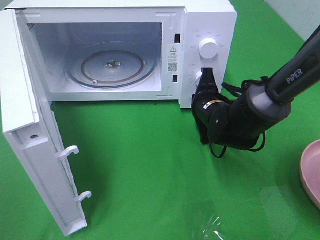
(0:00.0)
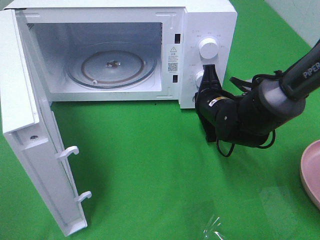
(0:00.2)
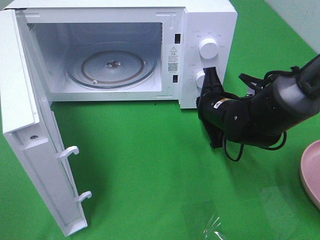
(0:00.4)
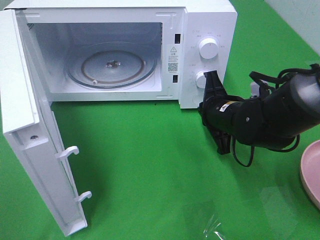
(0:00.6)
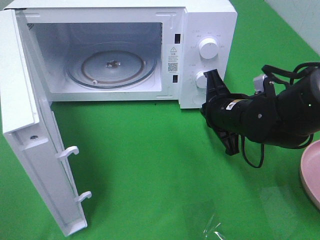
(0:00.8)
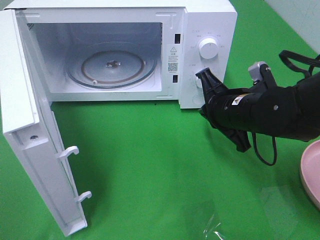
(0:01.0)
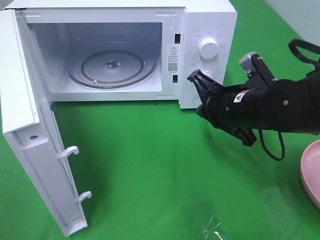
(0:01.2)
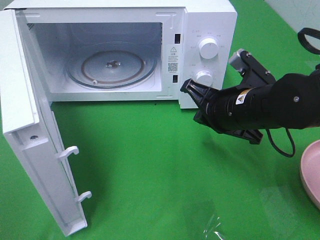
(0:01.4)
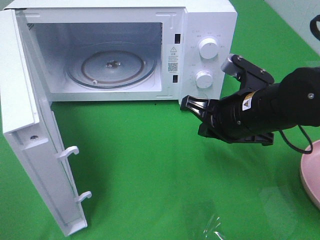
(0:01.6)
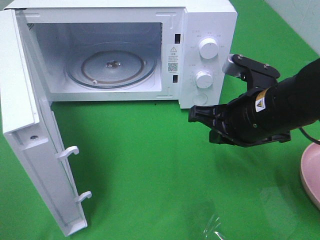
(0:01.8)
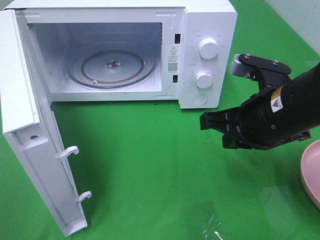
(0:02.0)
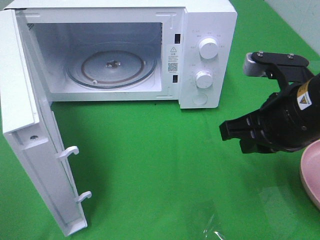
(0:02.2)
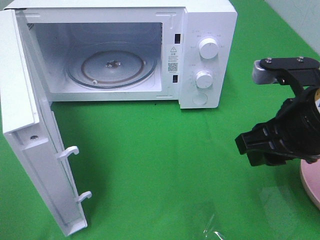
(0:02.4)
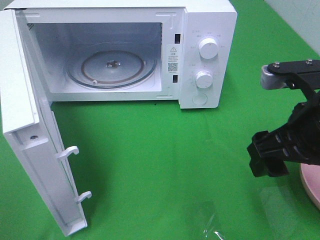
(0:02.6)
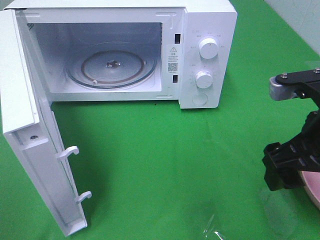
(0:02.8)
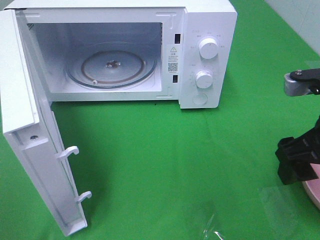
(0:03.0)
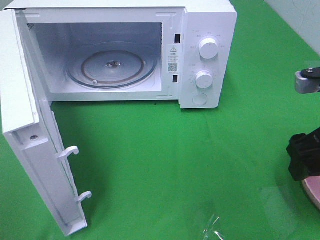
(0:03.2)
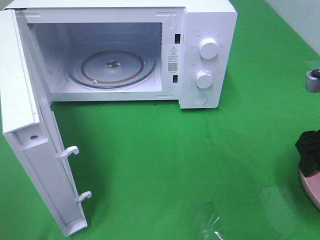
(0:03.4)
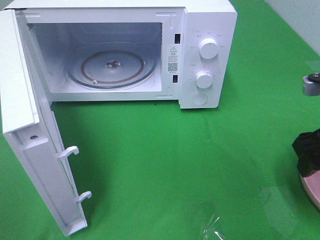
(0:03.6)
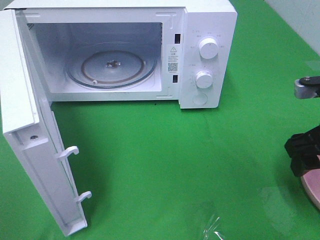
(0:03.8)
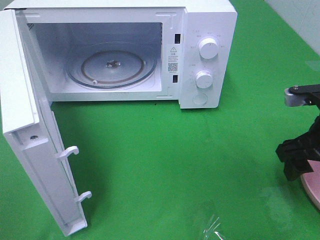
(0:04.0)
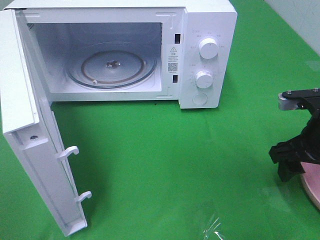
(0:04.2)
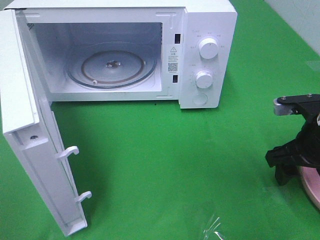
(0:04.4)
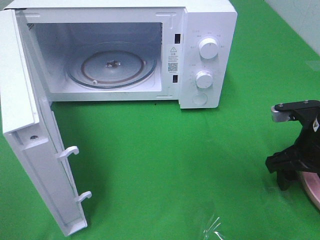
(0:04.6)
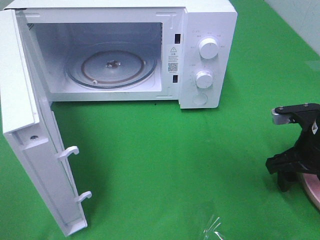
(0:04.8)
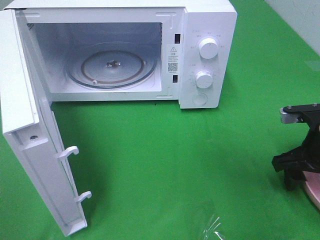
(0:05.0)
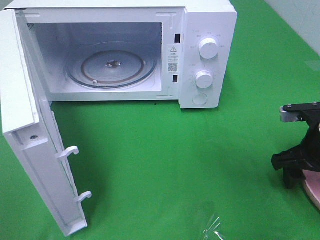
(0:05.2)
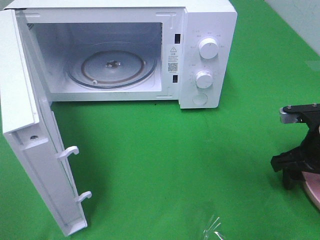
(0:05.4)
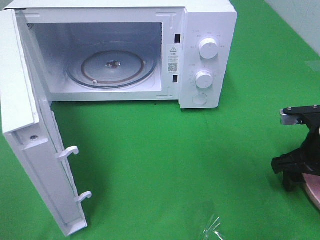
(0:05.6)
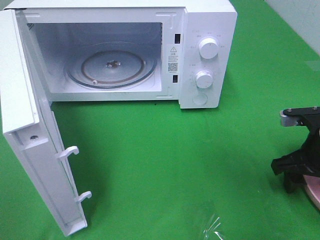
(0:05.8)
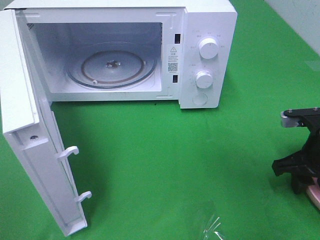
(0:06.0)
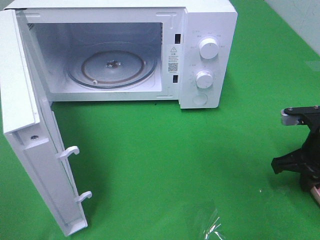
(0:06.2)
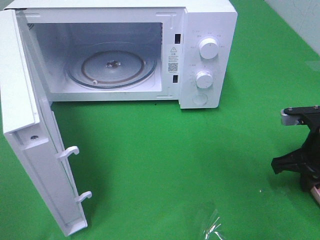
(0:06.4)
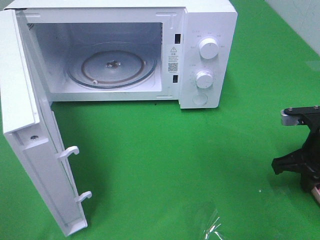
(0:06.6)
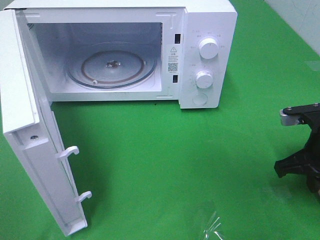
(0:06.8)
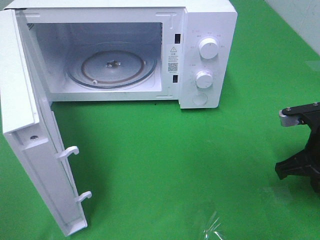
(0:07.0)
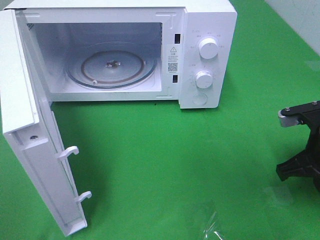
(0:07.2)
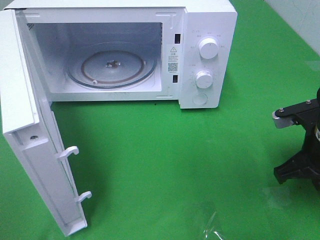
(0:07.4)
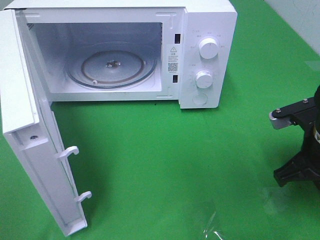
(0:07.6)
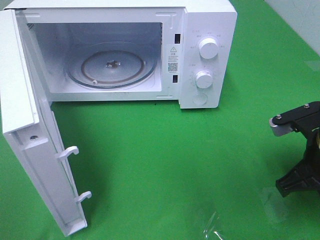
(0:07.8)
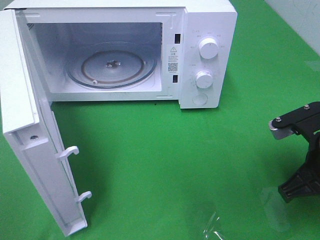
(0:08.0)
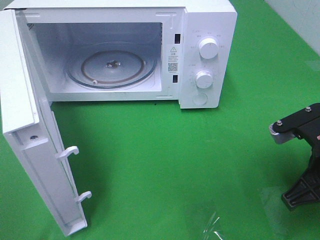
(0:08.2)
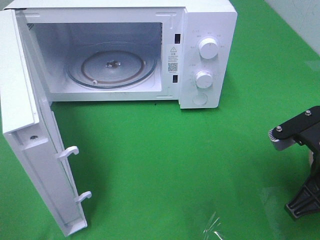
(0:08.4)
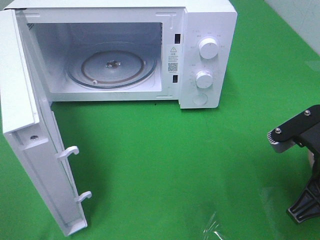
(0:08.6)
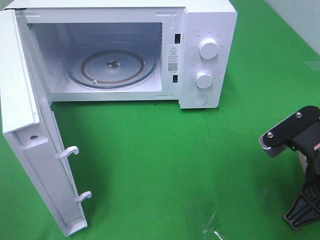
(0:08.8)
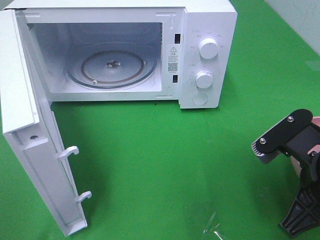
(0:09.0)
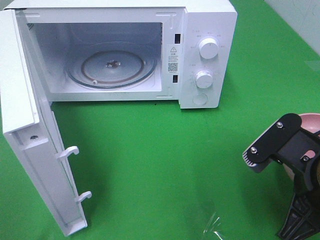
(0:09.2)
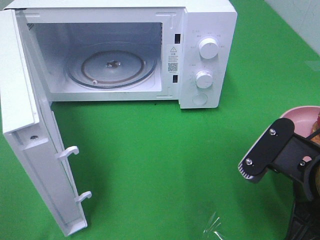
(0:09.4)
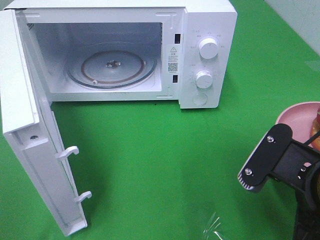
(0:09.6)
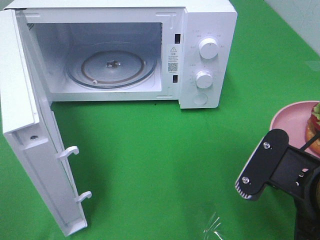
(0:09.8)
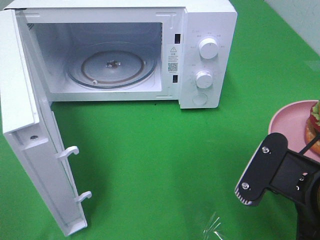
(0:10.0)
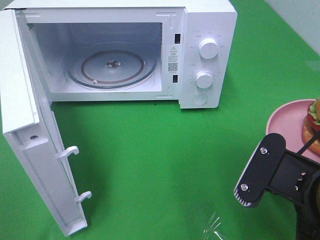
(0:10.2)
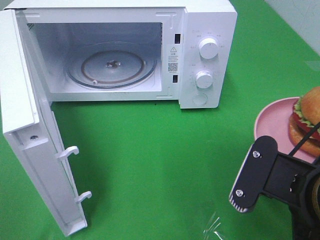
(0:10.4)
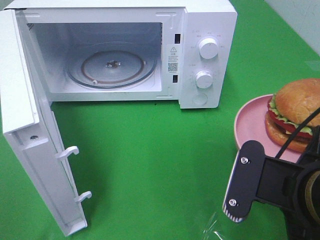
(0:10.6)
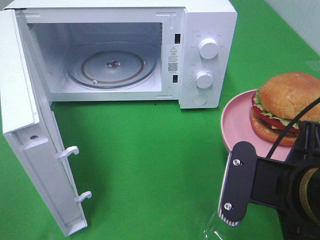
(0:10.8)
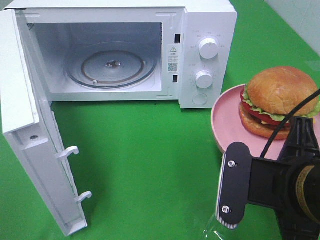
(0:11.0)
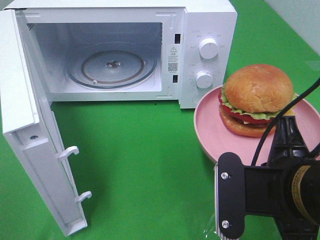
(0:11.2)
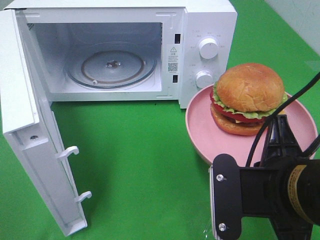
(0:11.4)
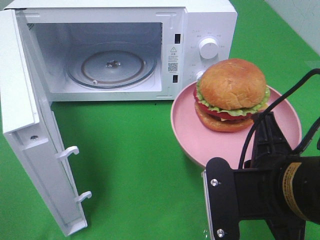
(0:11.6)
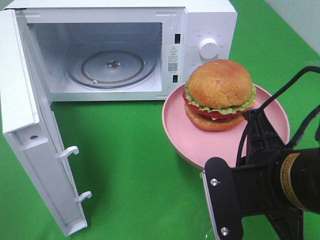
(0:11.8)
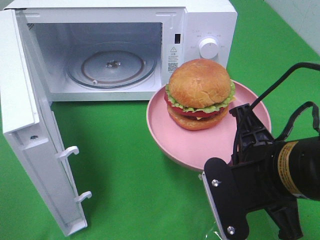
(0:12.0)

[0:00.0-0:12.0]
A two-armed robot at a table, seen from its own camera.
Task of the whole recording: Heat the burger.
Step, 0:00.6 to 0:07.2: Right hand: grab the plate with the hamburger.
0:00.0 to 0:01.6: The right gripper goes about 15 cm backward and upward.
0:01.6 to 0:03.0: The right gripper is displaced to the right, backward and upward by some 10 cm, and opens up.
0:03.0 to 0:04.4: The right gripper goes approximately 10 cm downward and forward.
0:04.4 to 0:06.0: The right gripper closes.
0:06.0 to 0:07.6: The right gripper changes place by some 5 cm, and closes.
0:07.6 to 0:09.0: The right gripper travels backward by some 10 cm.

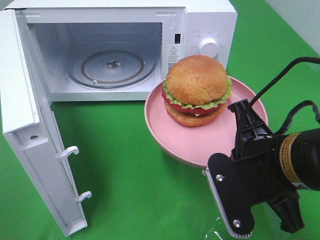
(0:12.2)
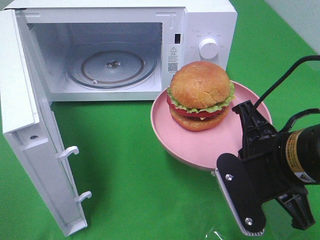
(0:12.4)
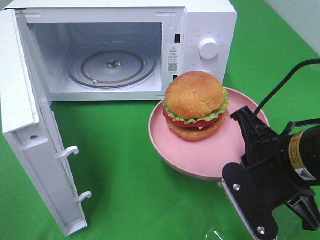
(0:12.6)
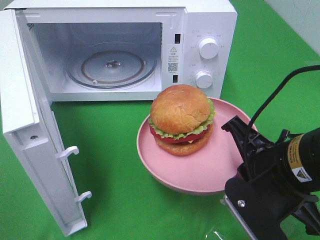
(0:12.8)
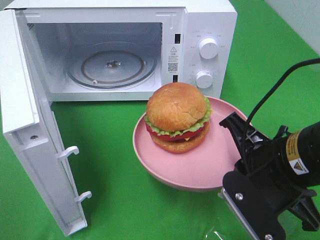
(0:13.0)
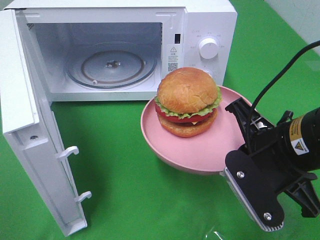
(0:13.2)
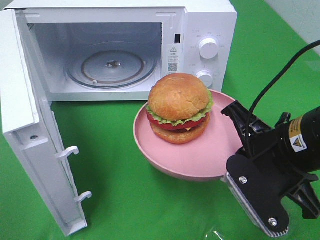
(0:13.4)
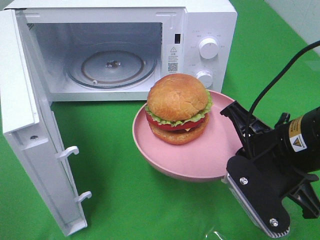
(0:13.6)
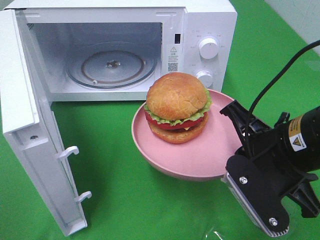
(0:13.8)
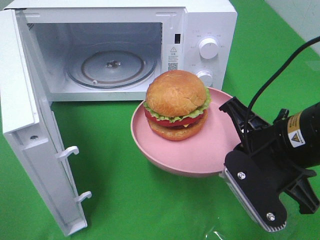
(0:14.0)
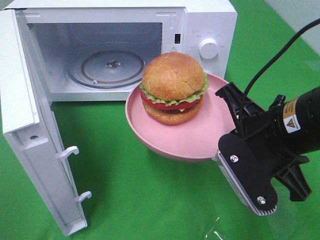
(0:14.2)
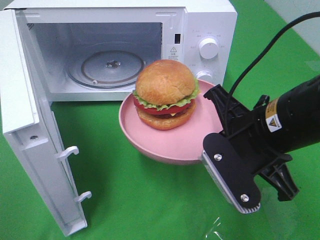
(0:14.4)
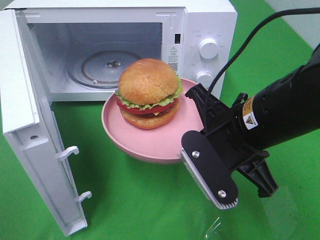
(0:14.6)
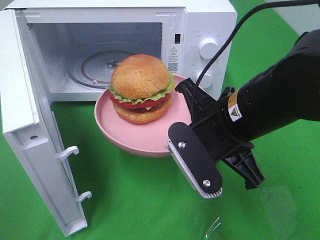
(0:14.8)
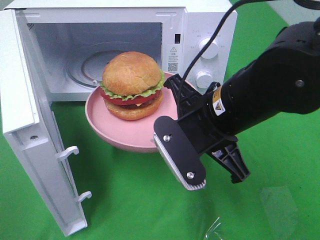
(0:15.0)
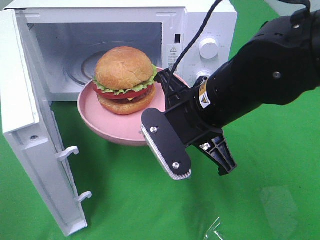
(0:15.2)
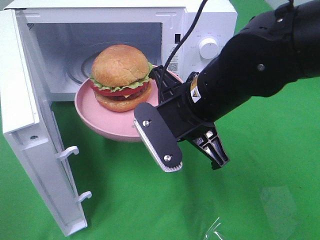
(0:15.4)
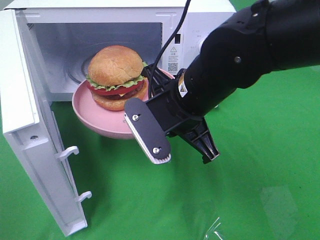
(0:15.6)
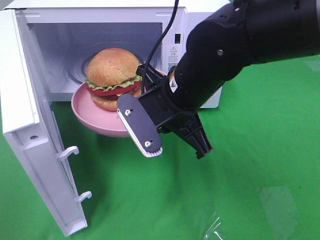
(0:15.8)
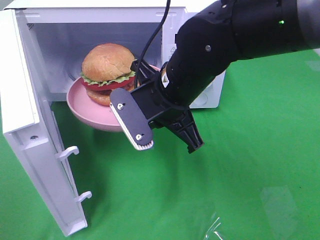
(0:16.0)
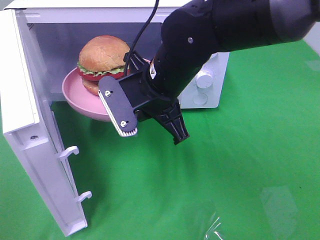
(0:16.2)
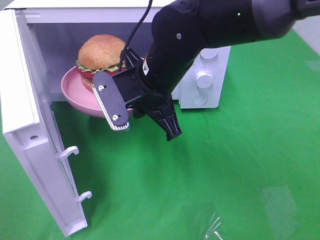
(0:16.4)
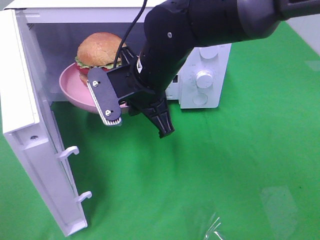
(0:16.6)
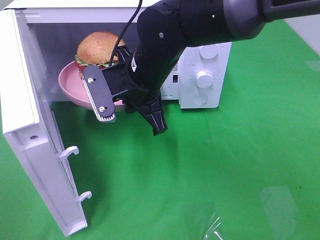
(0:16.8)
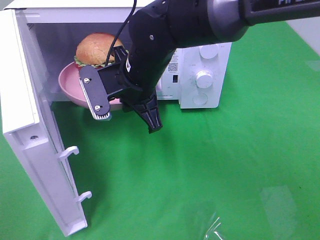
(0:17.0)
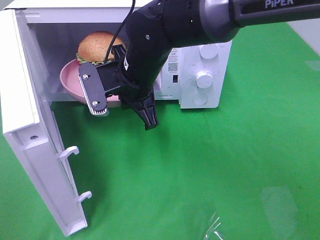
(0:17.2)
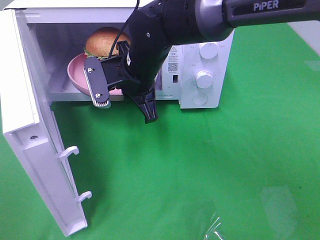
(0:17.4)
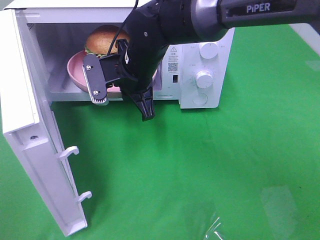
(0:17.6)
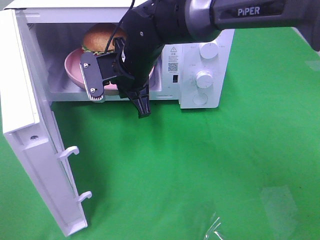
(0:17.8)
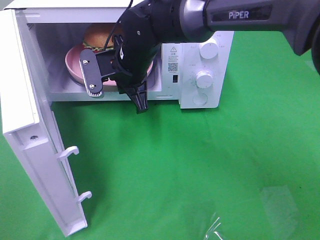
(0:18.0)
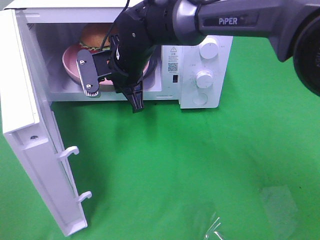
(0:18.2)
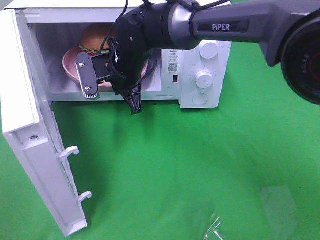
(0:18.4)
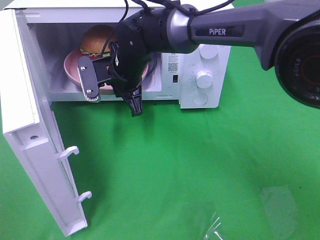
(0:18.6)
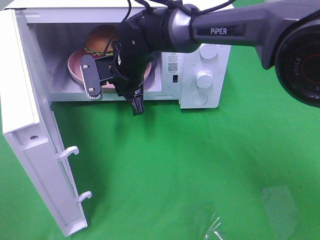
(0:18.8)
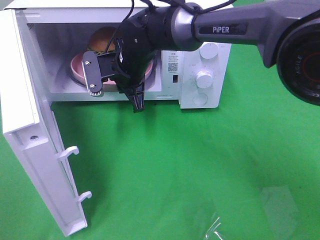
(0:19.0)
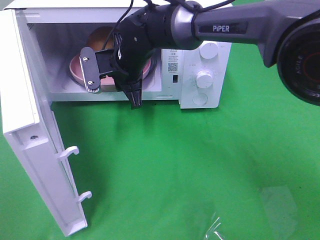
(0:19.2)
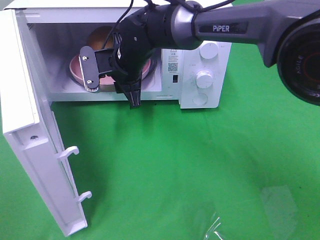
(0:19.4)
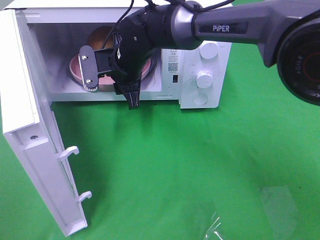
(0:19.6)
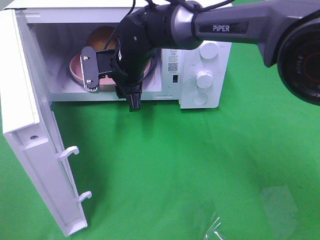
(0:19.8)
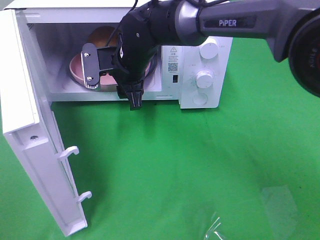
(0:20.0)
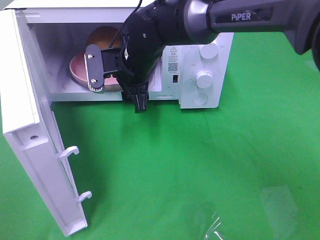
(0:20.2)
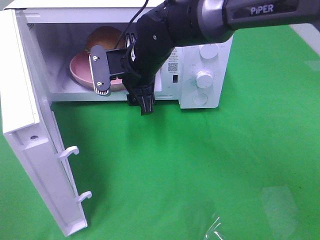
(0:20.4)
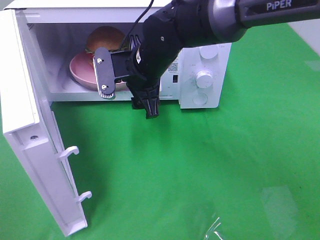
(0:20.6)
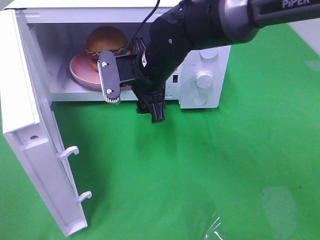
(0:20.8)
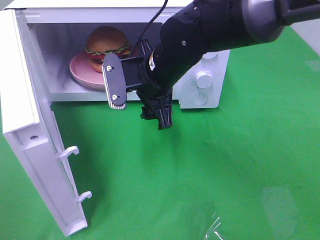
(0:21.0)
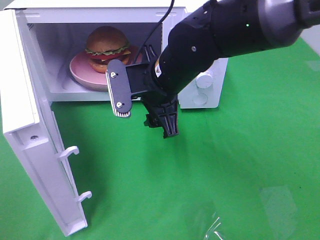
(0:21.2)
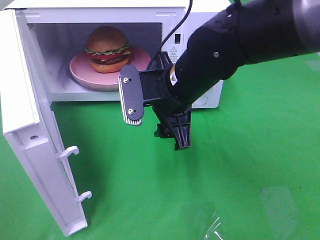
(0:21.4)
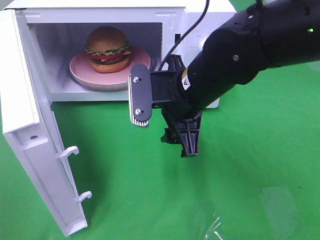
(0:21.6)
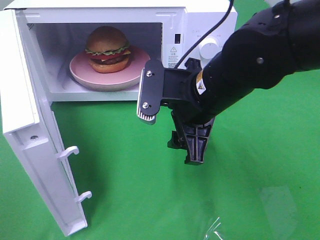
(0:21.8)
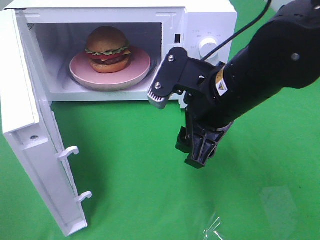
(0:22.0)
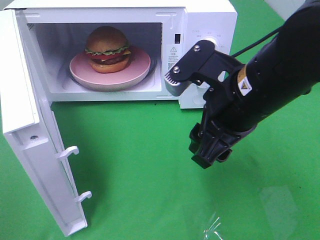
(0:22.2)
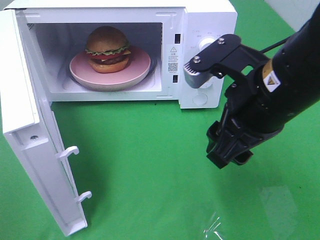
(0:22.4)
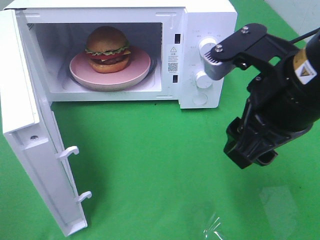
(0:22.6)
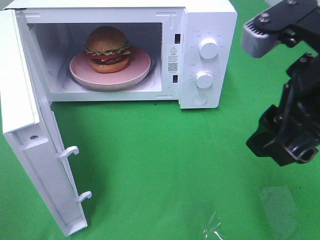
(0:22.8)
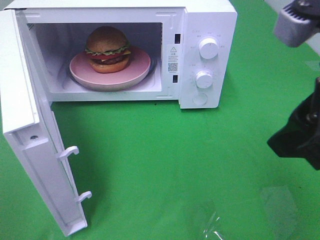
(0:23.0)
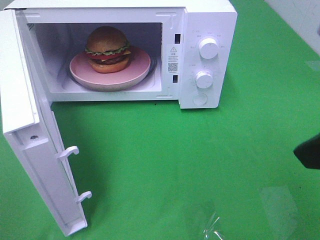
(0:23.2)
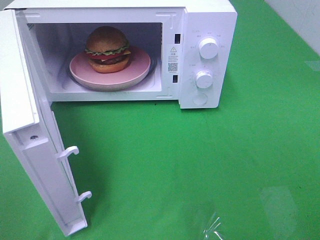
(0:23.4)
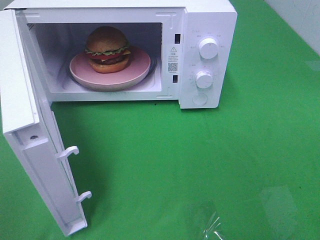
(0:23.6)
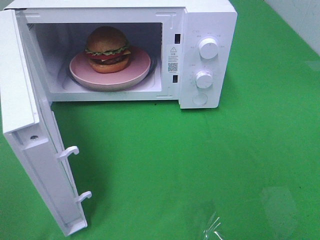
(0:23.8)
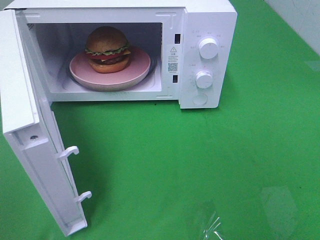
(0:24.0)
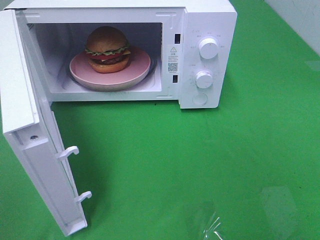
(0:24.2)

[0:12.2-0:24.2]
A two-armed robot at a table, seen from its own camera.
Task of the whole recording: Heat the burger.
Step, 0:12.2 to 0:20.6: Right hand: place the plate in the microwave.
0:12.2 to 0:13.8: There are only small adjustments of the grippers.
0:13.8 to 0:15.2: The right gripper shifts some 10 cm to the left and forward.
0:15.2 to 0:16.6: The right gripper heads forward and to the left, covering roughly 10 cm.
0:16.6 to 0:18.2: The right gripper shifts roughly 10 cm forward.
0:18.2 to 0:19.8: The right gripper opens.
0:19.8 to 0:21.2: The right gripper moves backward and to the right, some 10 cm.
0:21.2 to 0:22.6: The right gripper heads backward, to the right and upward, covering approximately 20 cm.
0:22.6 to 0:24.2: The right gripper is displaced backward and to the right by approximately 20 cm.
